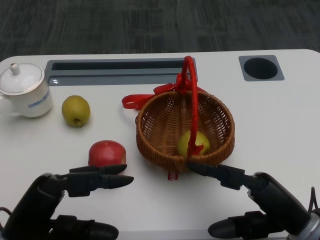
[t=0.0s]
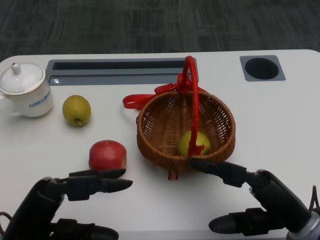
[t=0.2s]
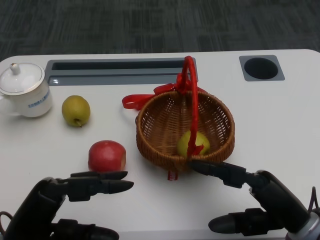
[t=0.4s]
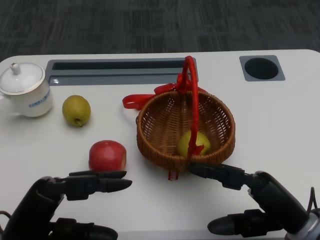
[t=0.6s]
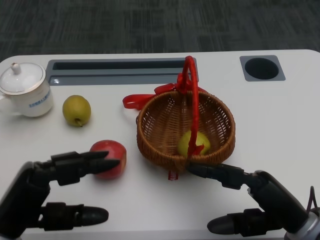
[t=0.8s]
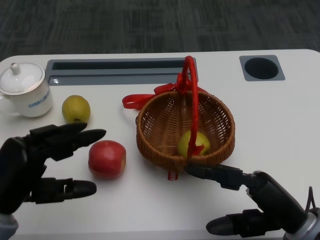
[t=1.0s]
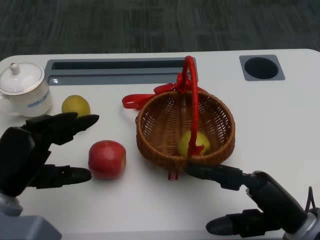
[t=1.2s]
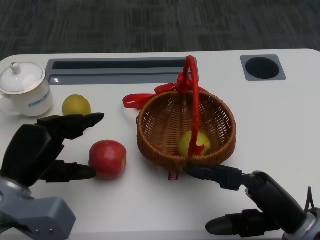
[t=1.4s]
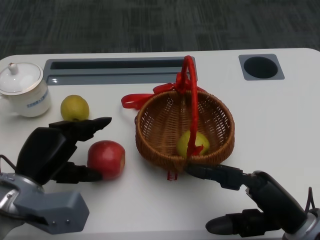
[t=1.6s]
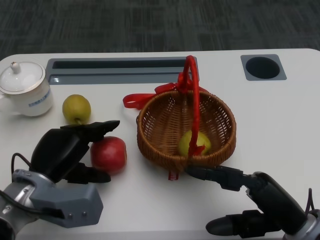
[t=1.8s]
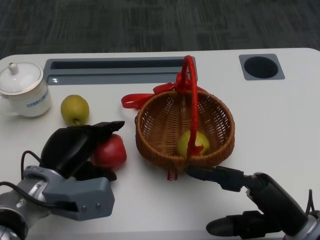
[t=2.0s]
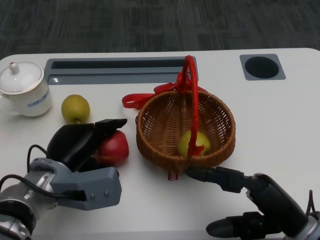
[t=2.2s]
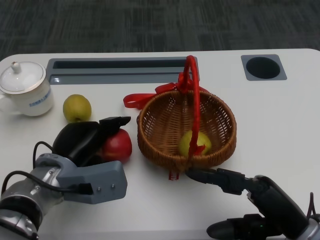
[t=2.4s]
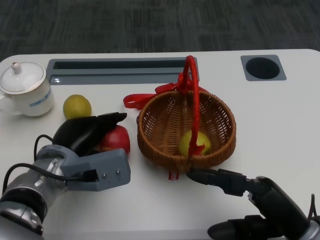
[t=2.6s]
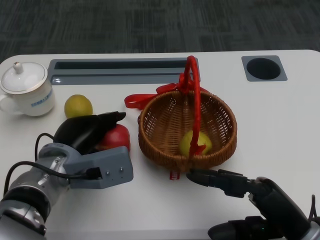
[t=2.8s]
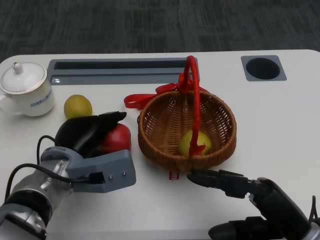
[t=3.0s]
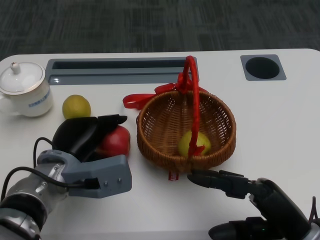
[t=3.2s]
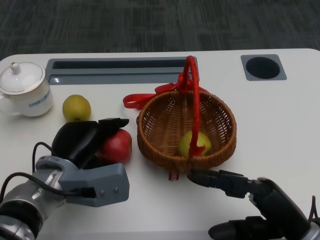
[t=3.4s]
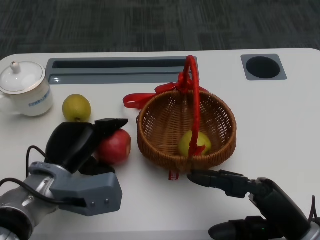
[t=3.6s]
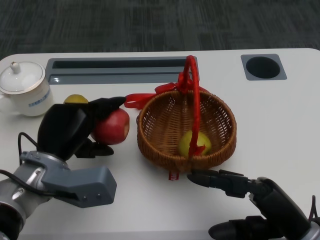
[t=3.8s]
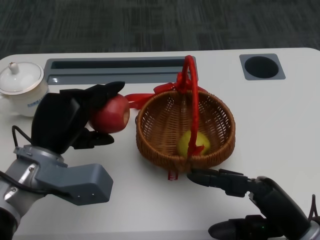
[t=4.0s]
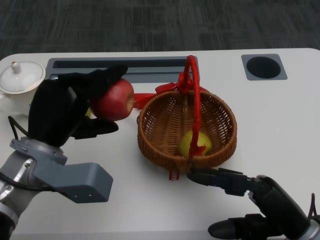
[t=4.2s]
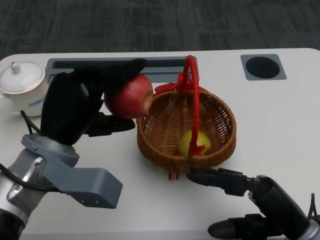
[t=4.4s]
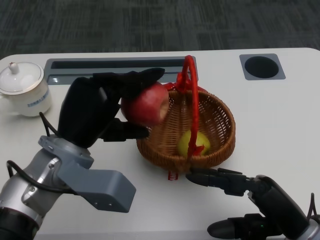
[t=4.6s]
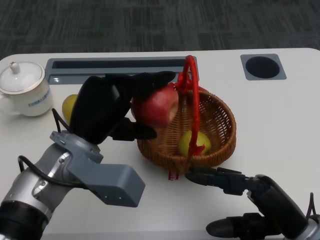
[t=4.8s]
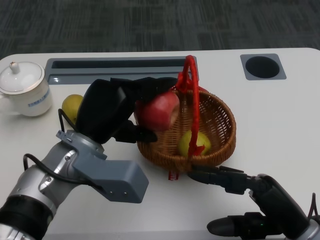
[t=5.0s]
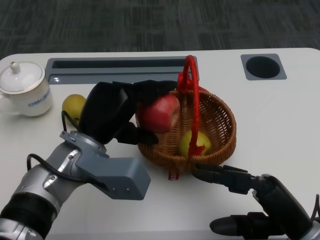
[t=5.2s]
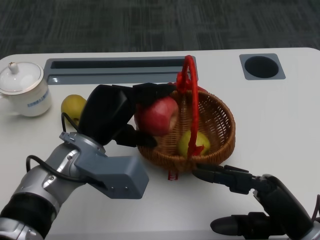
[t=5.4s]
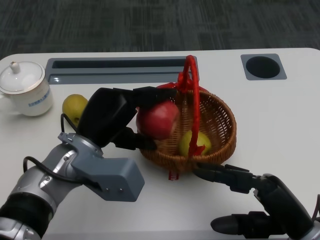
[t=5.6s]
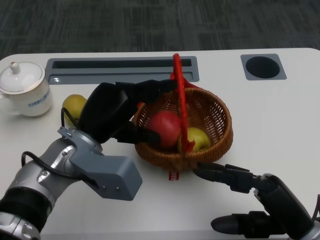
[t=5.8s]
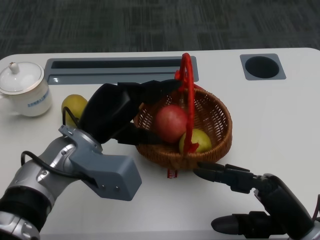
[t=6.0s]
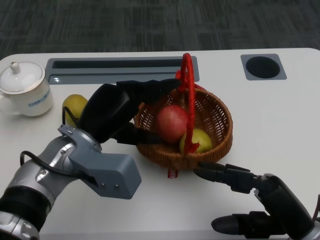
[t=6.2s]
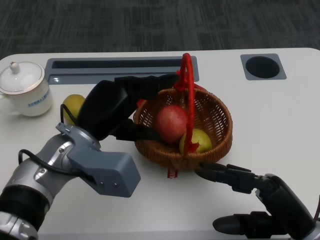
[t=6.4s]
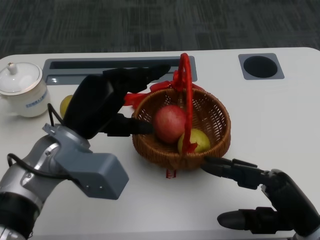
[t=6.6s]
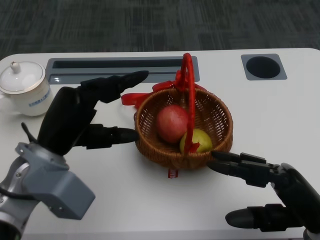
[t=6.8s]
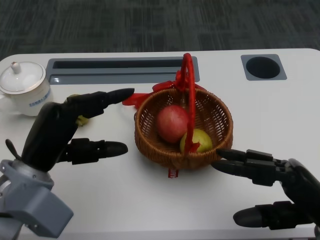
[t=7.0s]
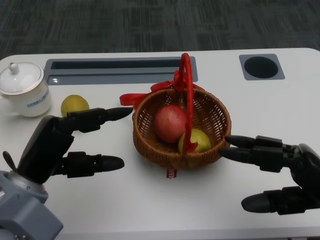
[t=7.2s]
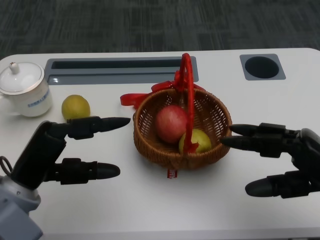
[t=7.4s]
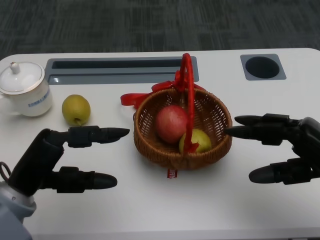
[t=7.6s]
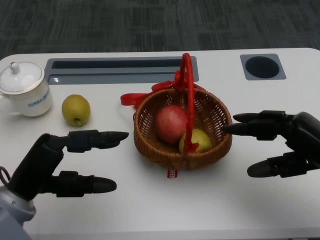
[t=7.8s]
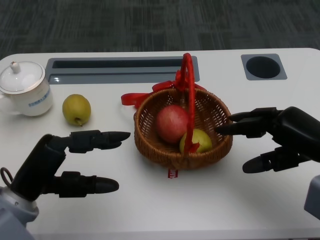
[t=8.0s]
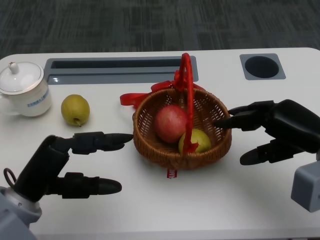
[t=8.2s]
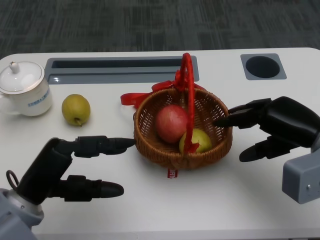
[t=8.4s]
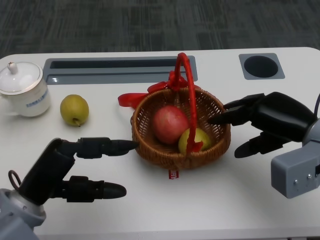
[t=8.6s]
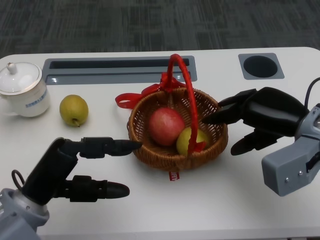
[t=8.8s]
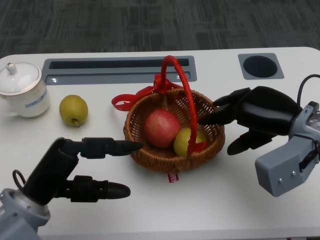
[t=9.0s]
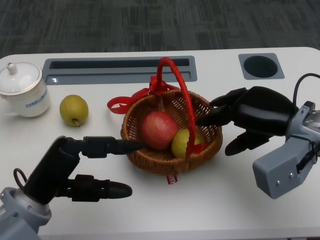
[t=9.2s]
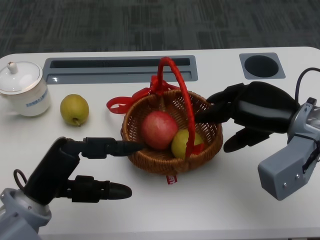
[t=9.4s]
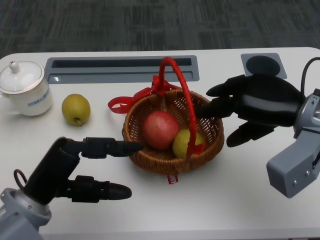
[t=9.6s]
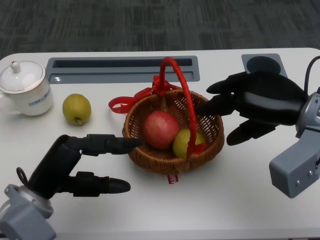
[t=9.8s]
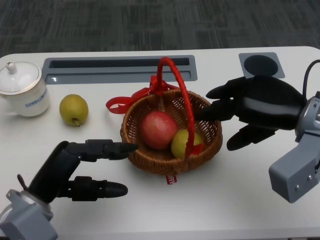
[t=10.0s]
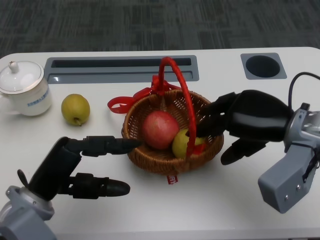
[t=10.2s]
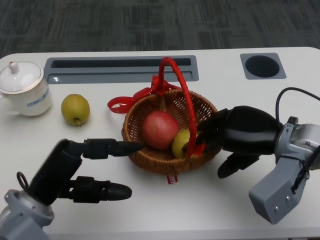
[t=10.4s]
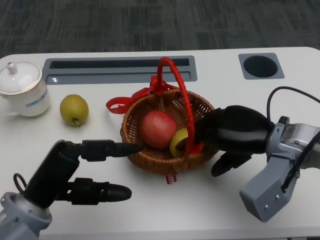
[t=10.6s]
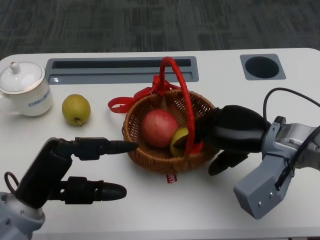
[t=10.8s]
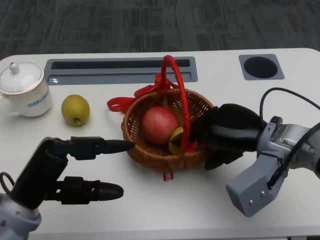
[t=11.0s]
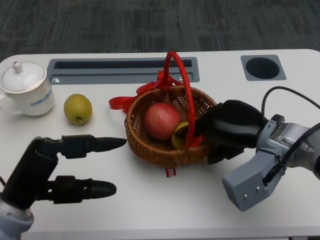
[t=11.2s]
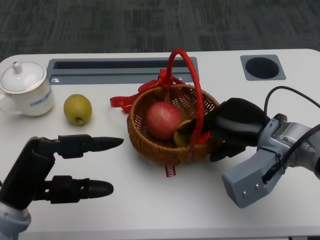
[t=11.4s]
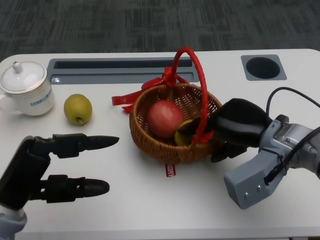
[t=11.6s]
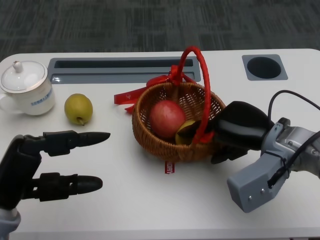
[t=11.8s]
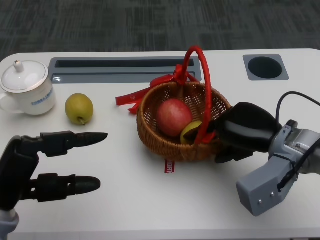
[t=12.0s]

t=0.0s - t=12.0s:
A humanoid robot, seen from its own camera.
Step, t=0.6s - t=1.8s: Grasp the apple with the left gripper.
Step, t=2.0s - t=4.6s: Place the apple into the basket with the left gripper.
Step, t=5.0s - t=9.4s: Grasp the basket with the right gripper.
Step, t=9.6s - t=11.4s: Move the basket to the front of the table with the right gripper.
t=1.6s - t=3.0s: The left hand heads to the right, covering roughly 5 cm.
t=3.0s - t=4.4s: The left hand shifts approximately 5 cm upward.
t=6.0s - t=7.6s: The left hand goes some 10 cm to the left and backward. The right hand heads to the right, upward and forward, covering some 10 cm.
t=7.6s - t=9.0s: The right hand heads forward and to the left, covering about 10 cm.

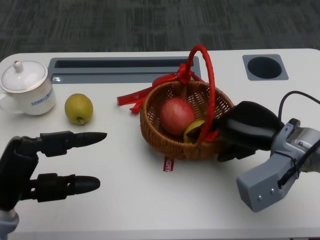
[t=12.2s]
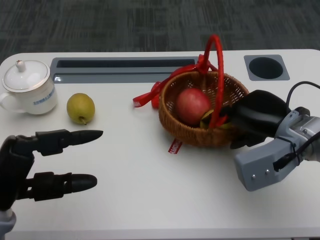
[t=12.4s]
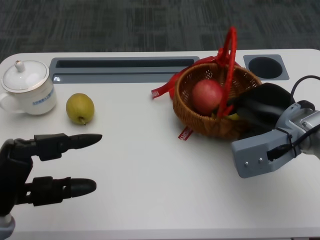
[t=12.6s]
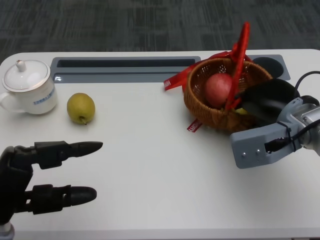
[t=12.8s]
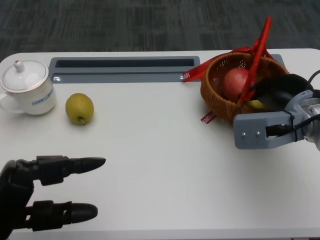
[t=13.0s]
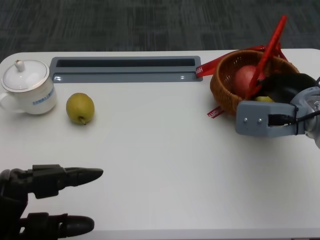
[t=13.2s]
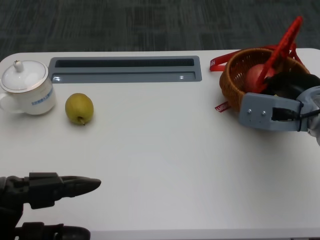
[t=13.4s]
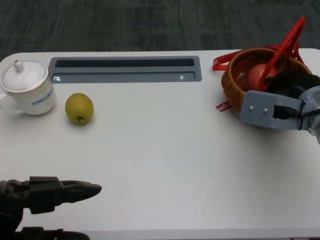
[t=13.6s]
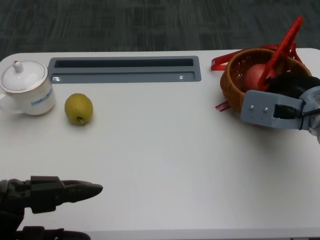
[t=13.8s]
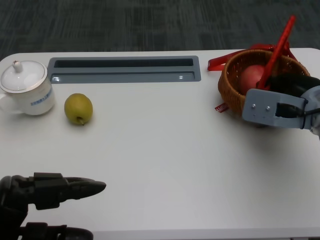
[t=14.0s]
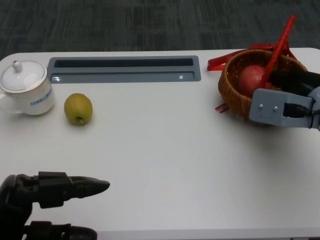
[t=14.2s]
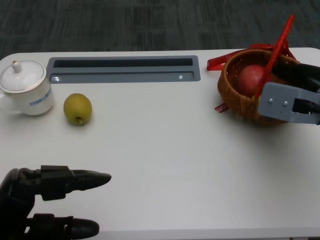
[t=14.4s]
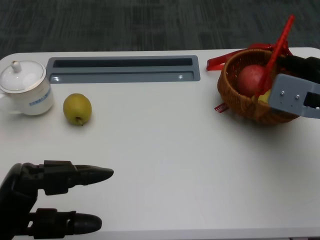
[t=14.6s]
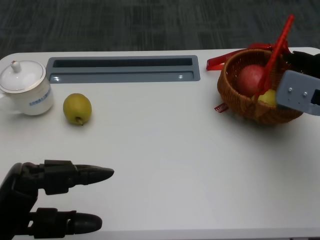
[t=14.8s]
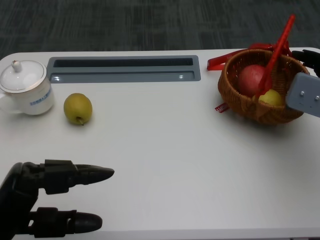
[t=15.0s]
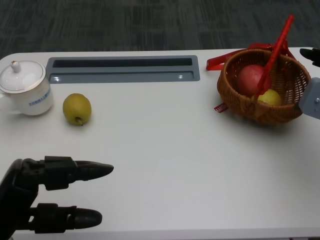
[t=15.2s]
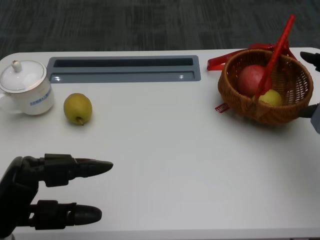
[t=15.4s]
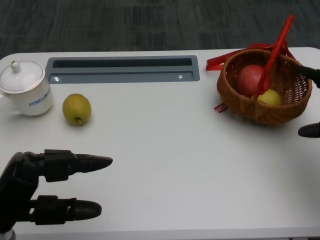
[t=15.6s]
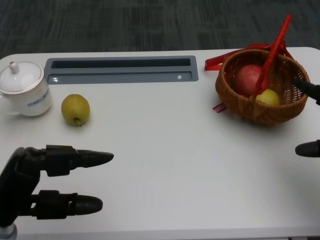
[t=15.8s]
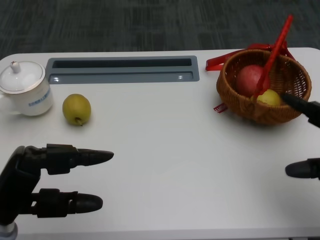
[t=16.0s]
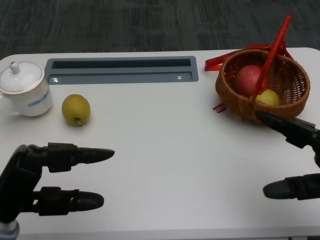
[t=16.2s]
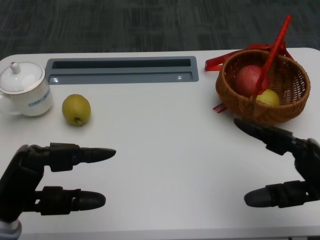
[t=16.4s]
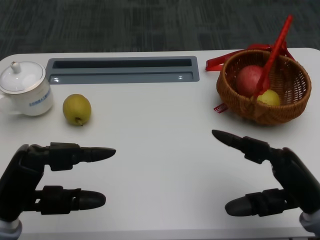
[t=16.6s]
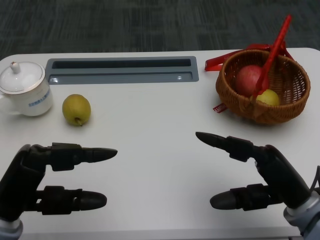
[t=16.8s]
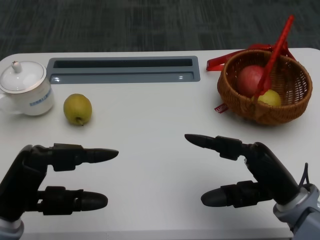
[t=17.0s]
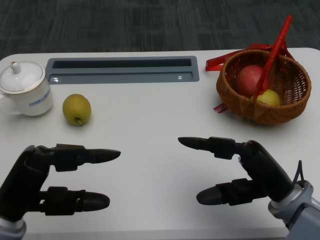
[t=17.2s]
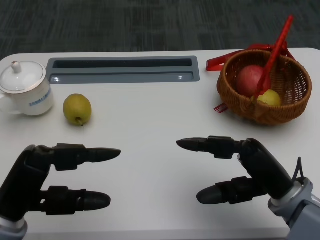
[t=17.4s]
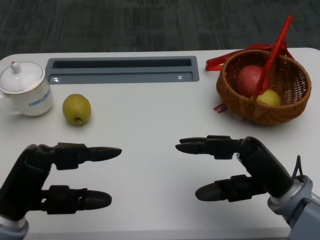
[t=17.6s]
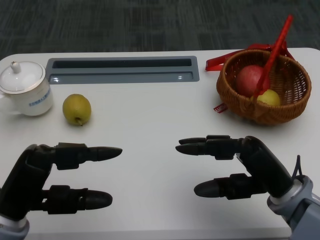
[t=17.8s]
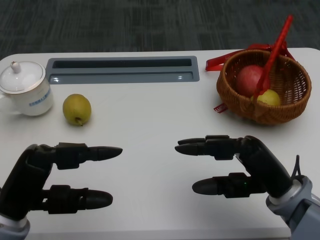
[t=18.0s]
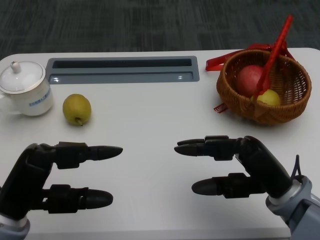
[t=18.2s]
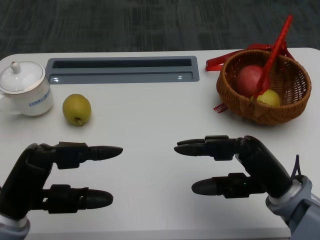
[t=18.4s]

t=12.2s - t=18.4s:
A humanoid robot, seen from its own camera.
t=12.2s - t=13.8s: The left hand goes about 5 cm backward, while the right hand shifts by some 5 cm.
t=13.8s - t=15.4s: The right hand is displaced to the right by approximately 10 cm.
t=15.4s - t=16.8s: The right hand shifts roughly 15 cm backward, to the left and downward.
t=16.8s - t=18.4s: The hands stay close to where they were, moving slightly.
